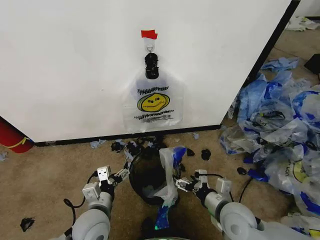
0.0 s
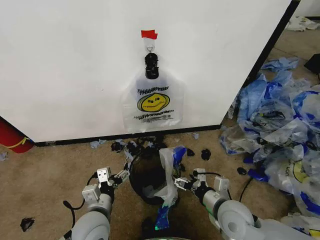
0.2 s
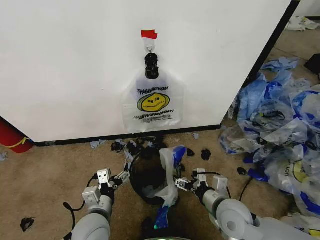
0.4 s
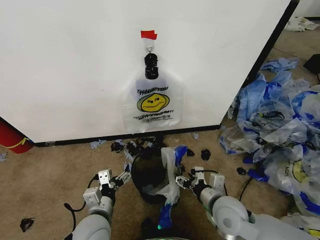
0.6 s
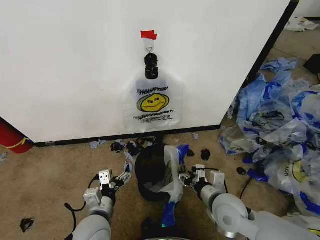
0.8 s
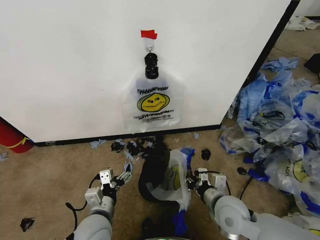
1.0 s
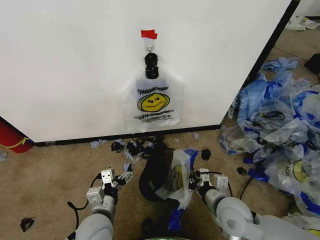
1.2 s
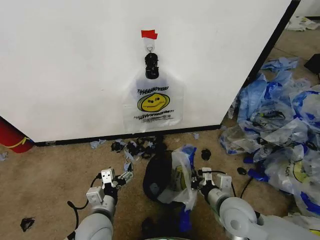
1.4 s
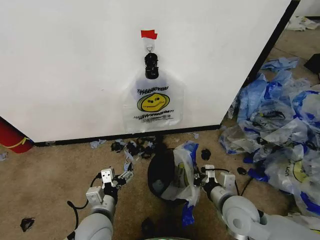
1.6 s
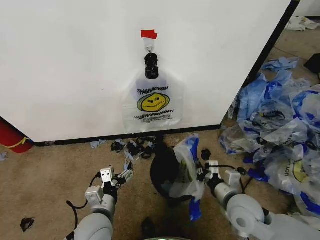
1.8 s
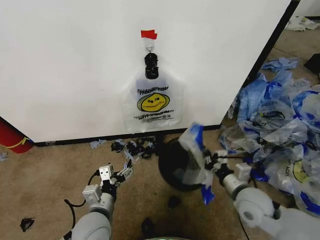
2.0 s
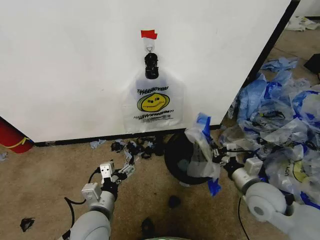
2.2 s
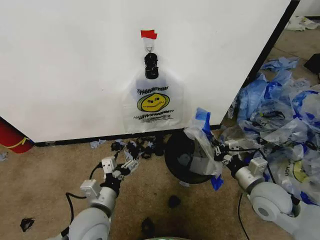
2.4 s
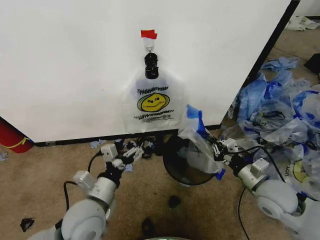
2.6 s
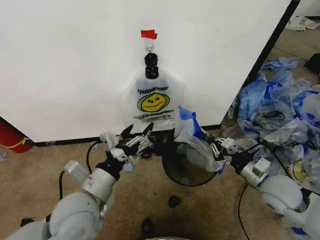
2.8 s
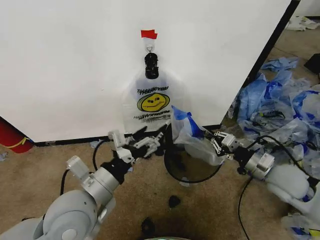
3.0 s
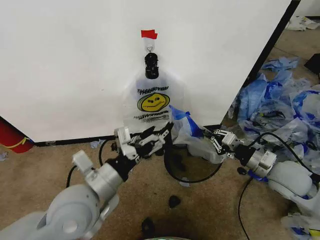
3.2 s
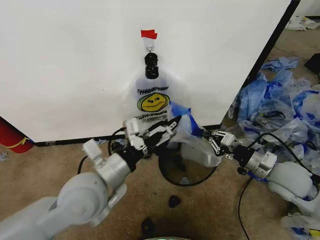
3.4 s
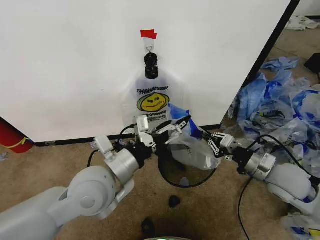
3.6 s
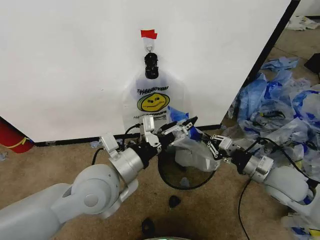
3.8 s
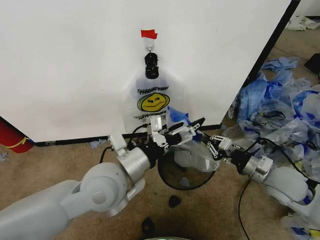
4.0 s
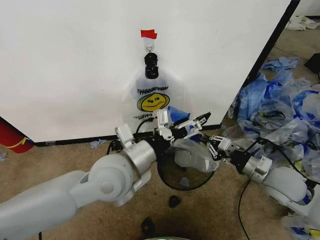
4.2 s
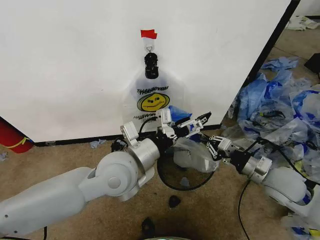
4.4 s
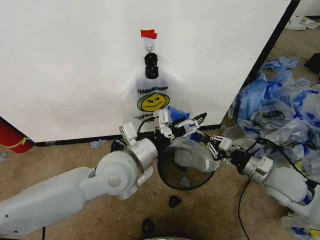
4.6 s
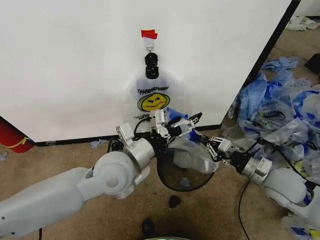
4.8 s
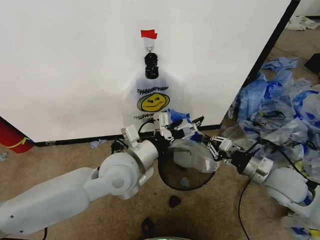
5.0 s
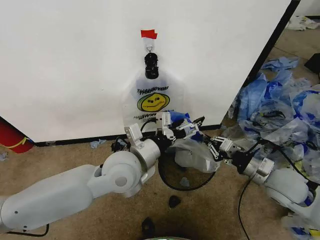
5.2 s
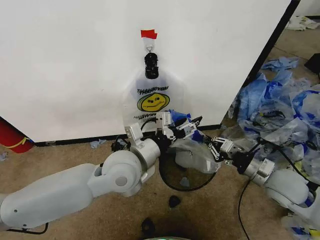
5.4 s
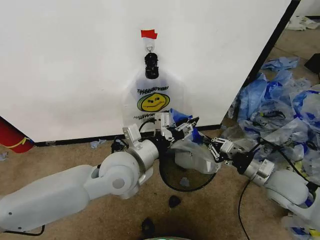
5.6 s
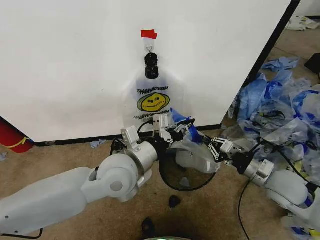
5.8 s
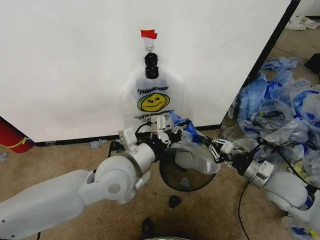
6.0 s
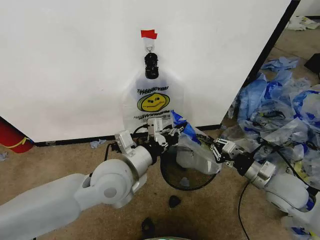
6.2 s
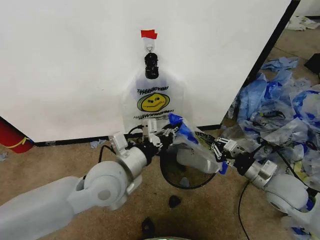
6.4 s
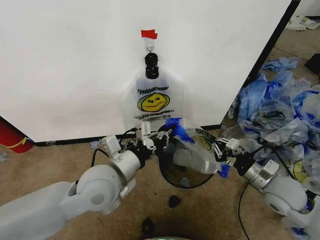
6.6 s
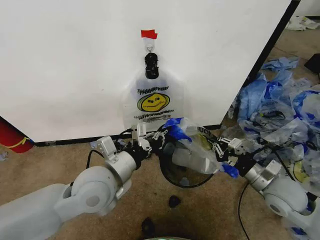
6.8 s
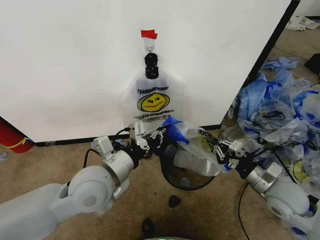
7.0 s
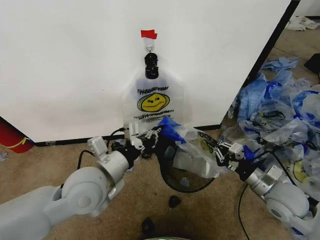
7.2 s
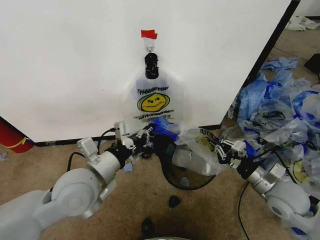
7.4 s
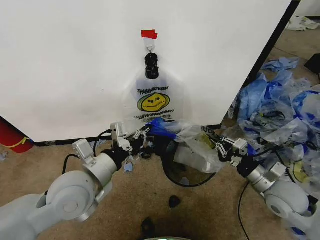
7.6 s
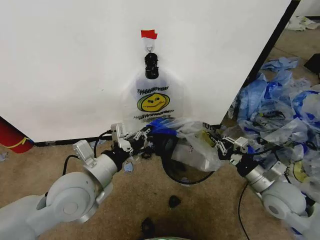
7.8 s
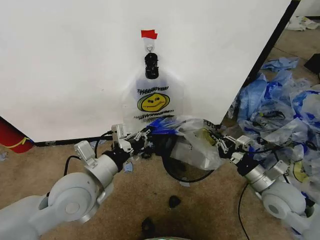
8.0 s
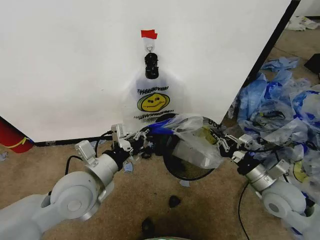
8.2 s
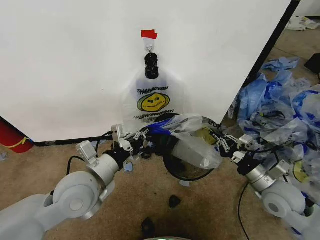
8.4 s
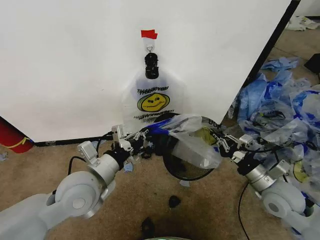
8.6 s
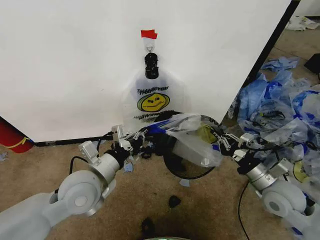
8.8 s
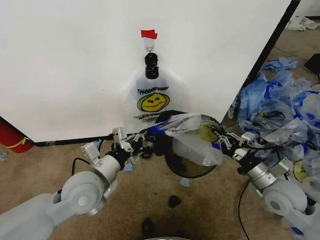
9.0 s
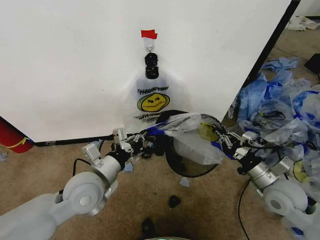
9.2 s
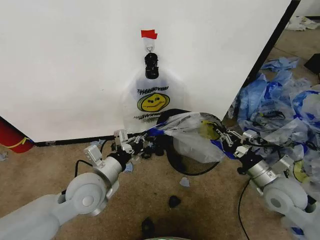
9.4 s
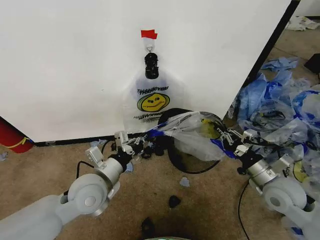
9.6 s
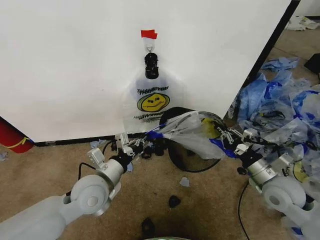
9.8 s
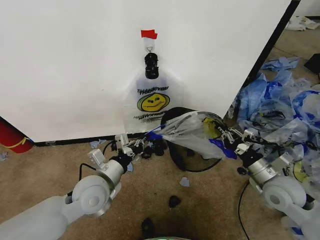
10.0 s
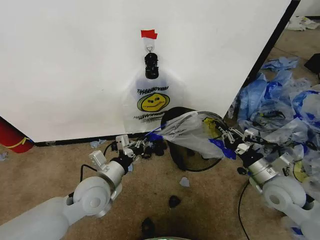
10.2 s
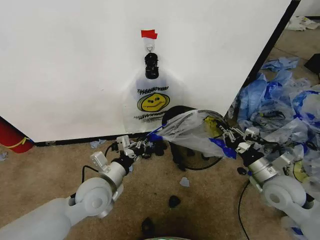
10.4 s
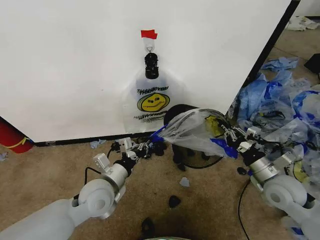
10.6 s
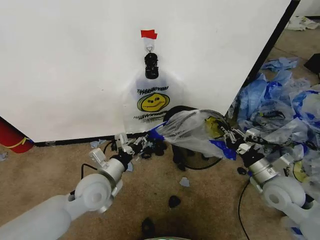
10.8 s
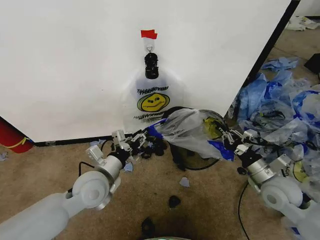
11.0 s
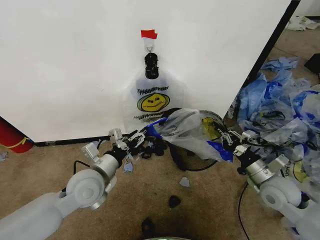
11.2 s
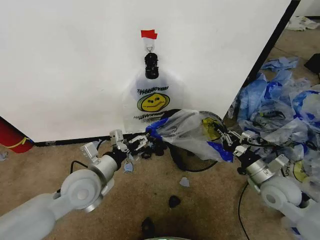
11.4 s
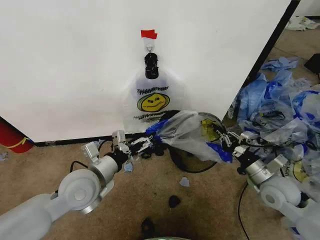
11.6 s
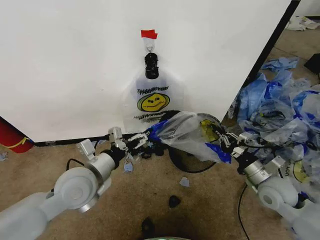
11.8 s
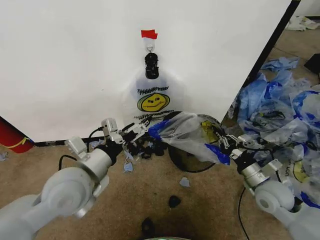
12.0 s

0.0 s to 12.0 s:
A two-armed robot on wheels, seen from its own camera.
Task of the whole recording: Pick up the garbage bag from the wall and place it over the trash bin.
0.0 to 1.6 s: The right gripper closes its fingers.
1.6 to 3.0 s: The left gripper moves upward, roughly 15 cm. Meanwhile the right gripper goes approximately 15 cm to the right, upward and forward.
3.0 to 4.4 s: The left gripper goes about 10 cm to the right and forward.
4.4 to 6.0 s: The left gripper closes its fingers.
6.0 to 7.6 s: The left gripper goes some 10 cm to the left.
7.6 to 9.0 s: The grippers move only a little.
9.0 to 10.4 s: The left gripper heads downward, covering some 5 cm.
10.4 to 12.0 s: The left gripper is displaced upward by roughly 10 cm, and opens.

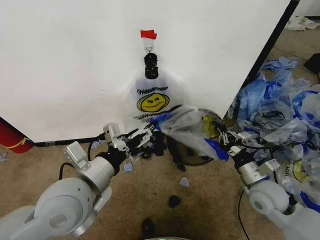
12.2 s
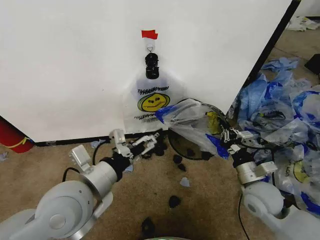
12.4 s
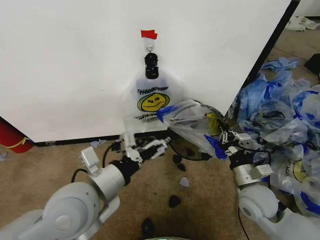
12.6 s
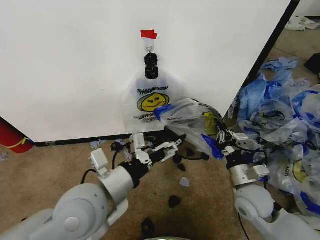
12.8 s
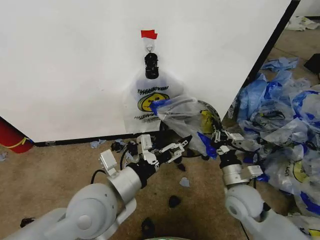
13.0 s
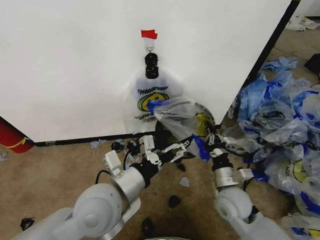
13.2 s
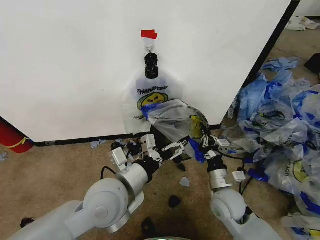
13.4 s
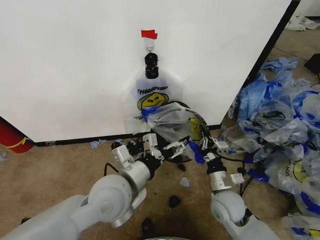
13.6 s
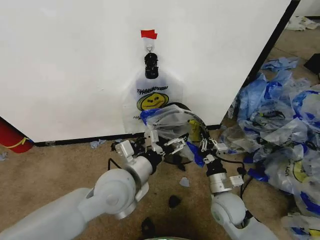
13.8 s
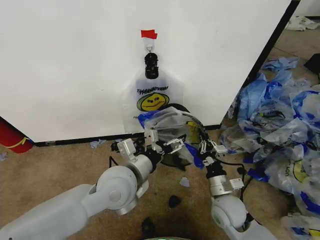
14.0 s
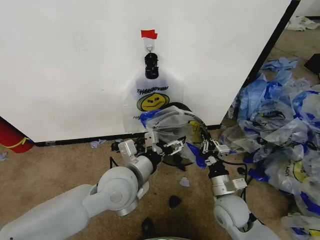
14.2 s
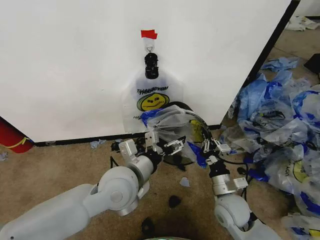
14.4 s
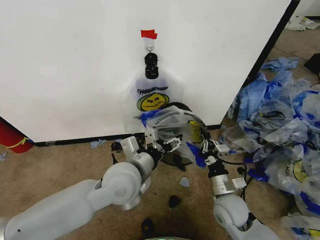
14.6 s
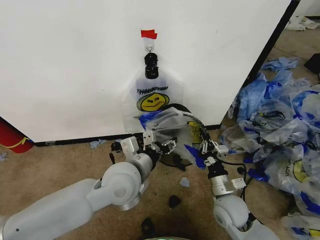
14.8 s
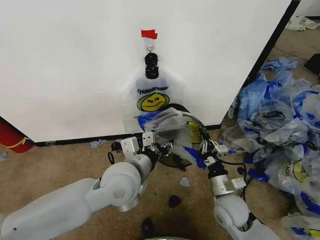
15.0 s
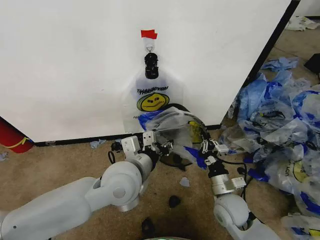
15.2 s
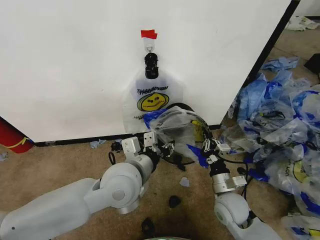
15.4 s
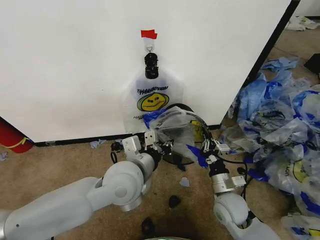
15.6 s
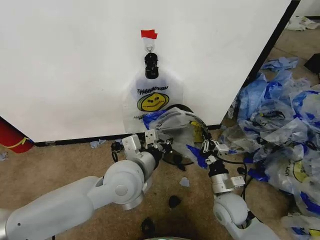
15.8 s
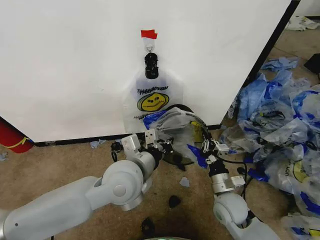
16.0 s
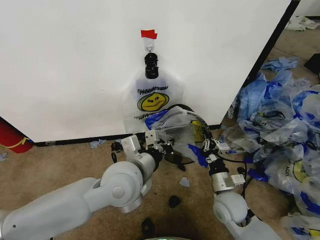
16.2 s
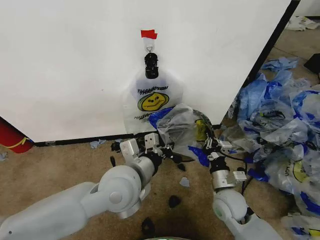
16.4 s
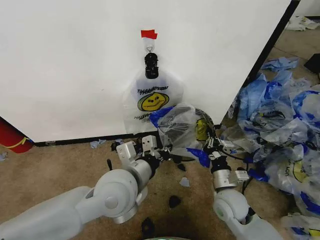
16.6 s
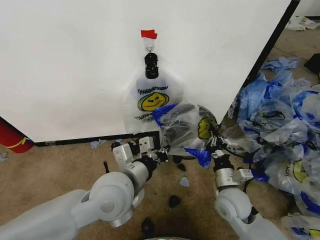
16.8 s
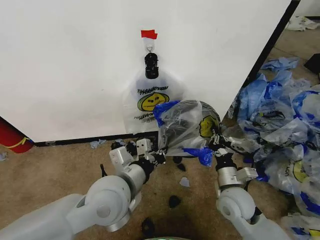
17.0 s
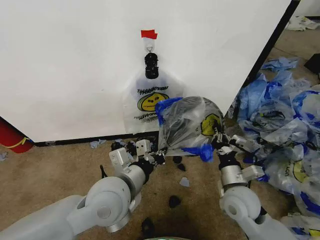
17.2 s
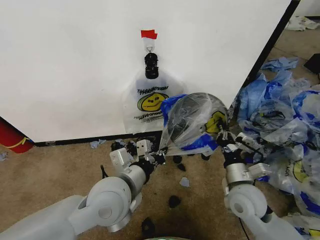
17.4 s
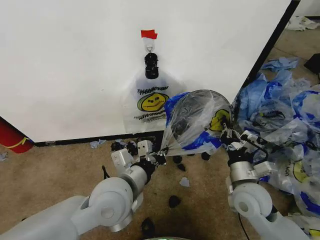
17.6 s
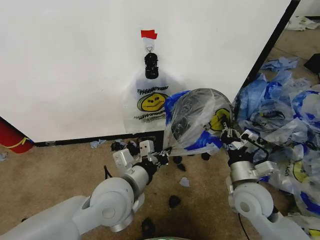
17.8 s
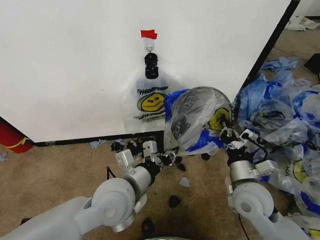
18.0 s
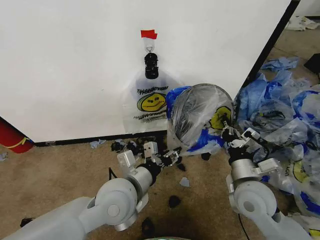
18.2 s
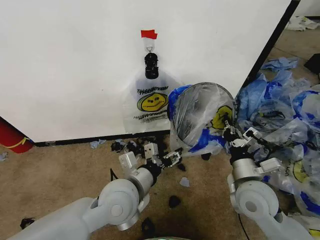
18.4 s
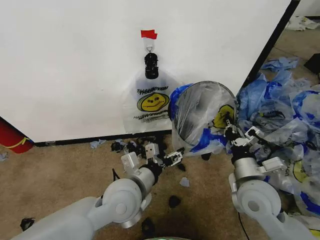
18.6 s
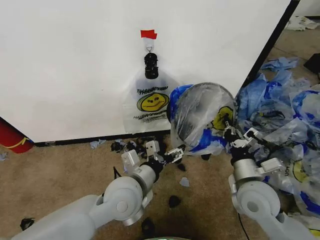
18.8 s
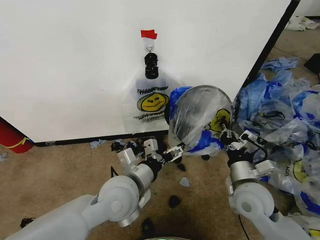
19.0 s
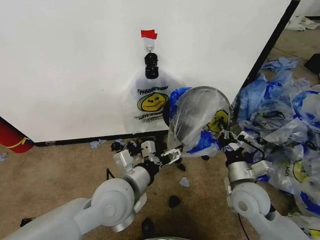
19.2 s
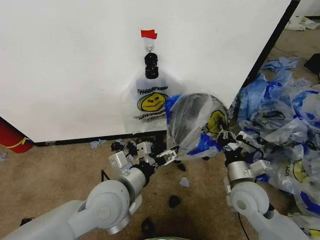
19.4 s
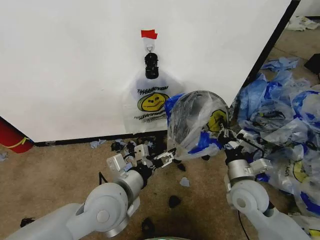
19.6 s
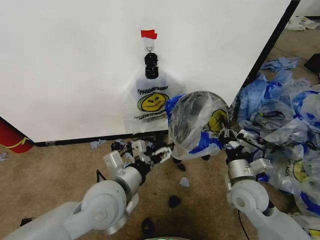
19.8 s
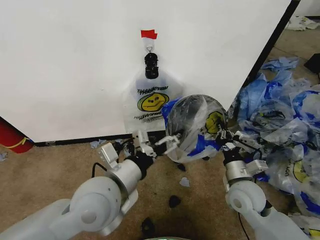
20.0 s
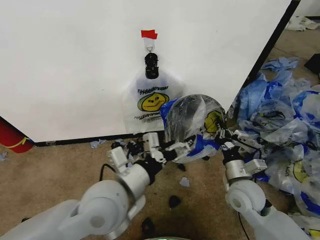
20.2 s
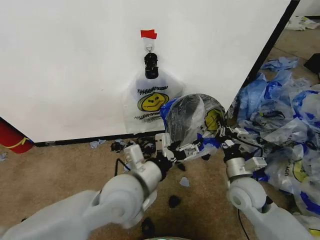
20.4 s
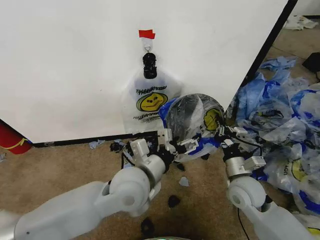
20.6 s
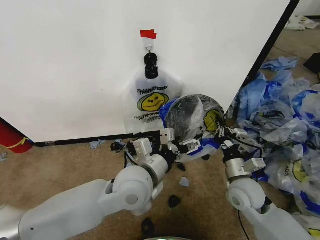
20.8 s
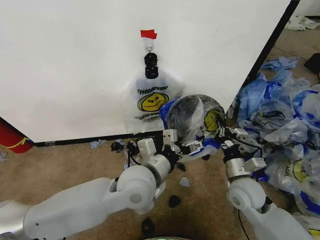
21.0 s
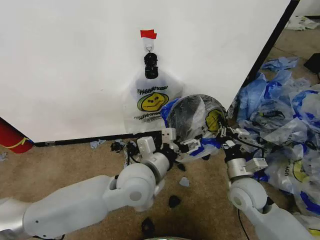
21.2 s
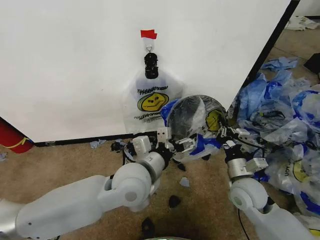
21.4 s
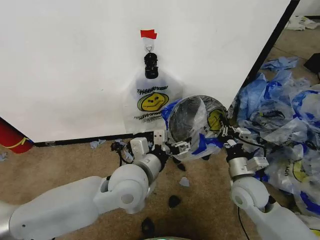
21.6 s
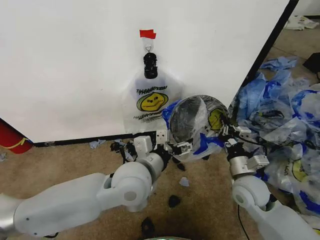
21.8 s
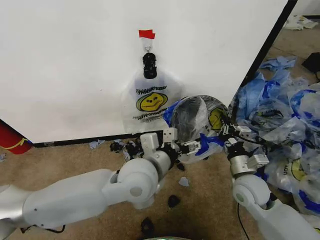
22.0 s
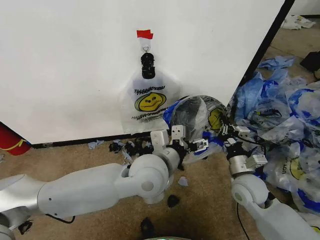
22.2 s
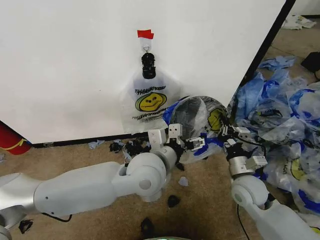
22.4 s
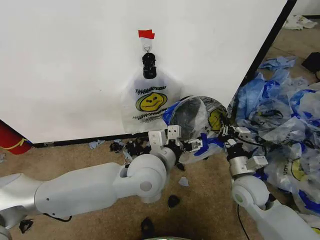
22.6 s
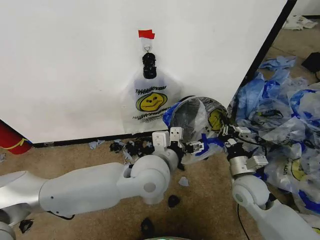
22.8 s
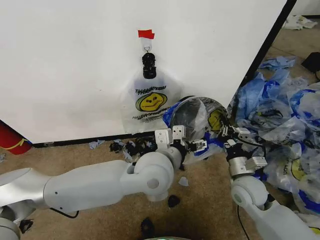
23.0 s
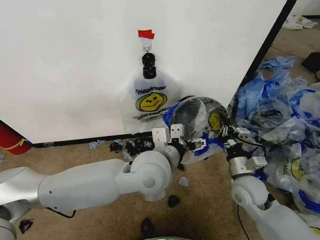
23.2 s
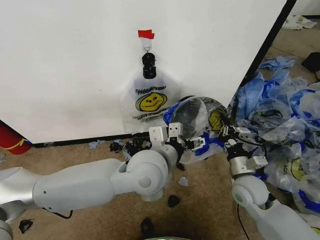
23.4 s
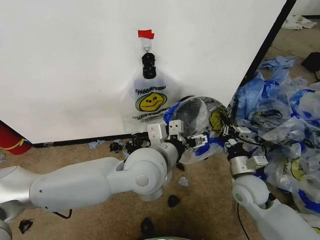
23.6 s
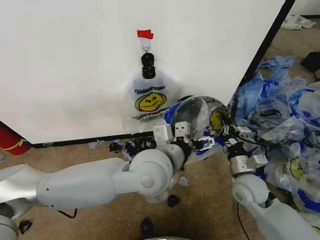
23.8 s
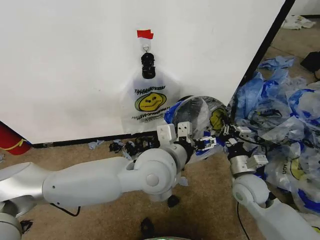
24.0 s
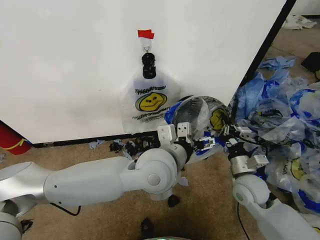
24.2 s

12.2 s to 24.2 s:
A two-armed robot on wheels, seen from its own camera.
Task of the whole recording: Pick up the garbage bag from the wall and place it over the trash bin.
12.2 to 13.8 s: The left gripper heads to the right, covering some 10 cm. Meanwhile the right gripper goes some 10 cm to the left and downward.
13.8 to 15.2 s: The left gripper closes up.
15.2 to 16.6 s: The left gripper closes its fingers.
16.6 to 18.2 s: The right gripper goes about 10 cm upward. Meanwhile the left gripper opens.
18.2 to 19.8 s: The left gripper opens.
19.8 to 21.2 s: The left gripper goes about 5 cm to the right.
21.2 to 22.6 s: The grippers make only small movements.
22.6 to 24.2 s: The grippers move only a little.
